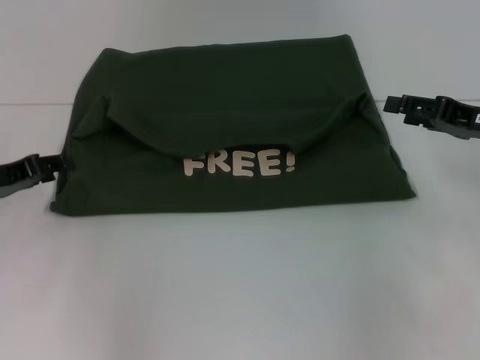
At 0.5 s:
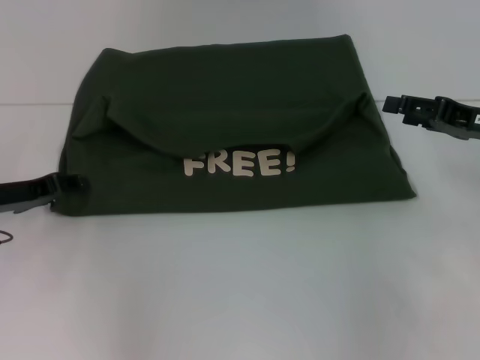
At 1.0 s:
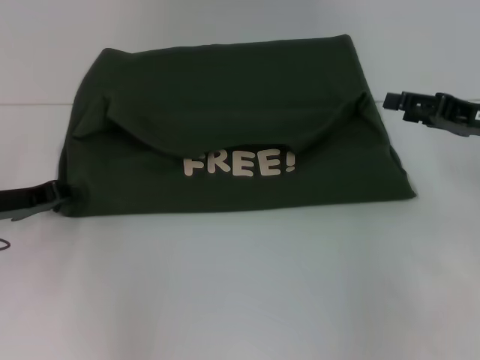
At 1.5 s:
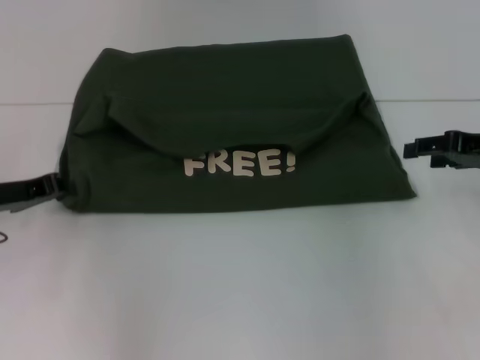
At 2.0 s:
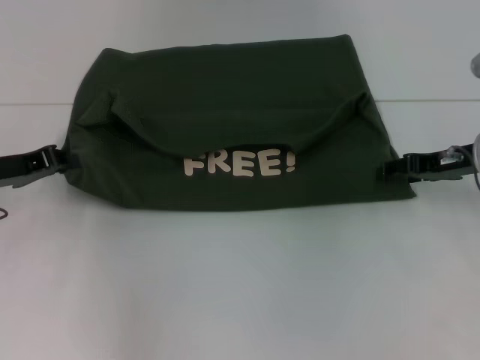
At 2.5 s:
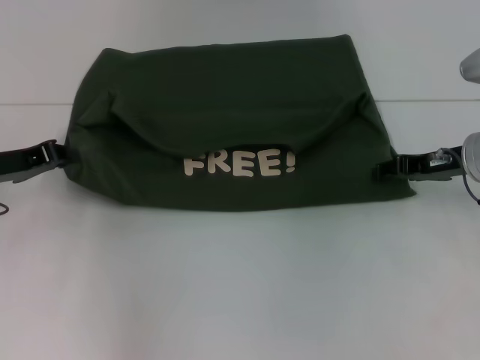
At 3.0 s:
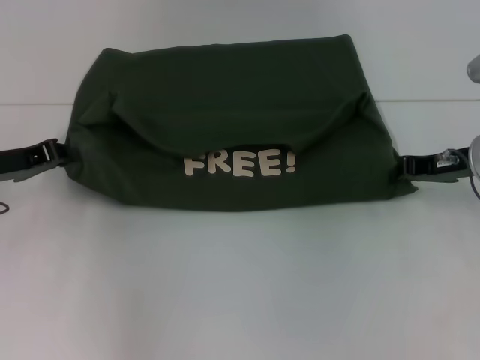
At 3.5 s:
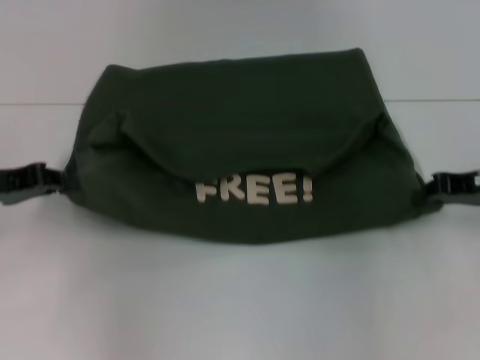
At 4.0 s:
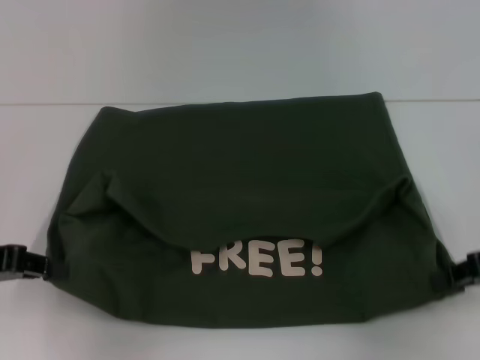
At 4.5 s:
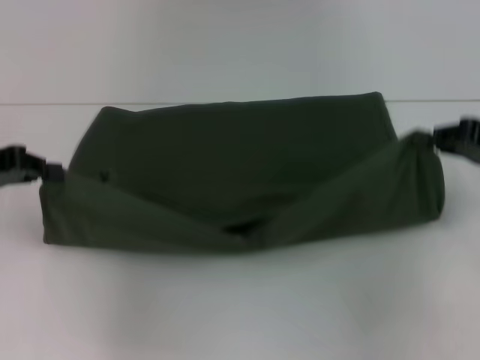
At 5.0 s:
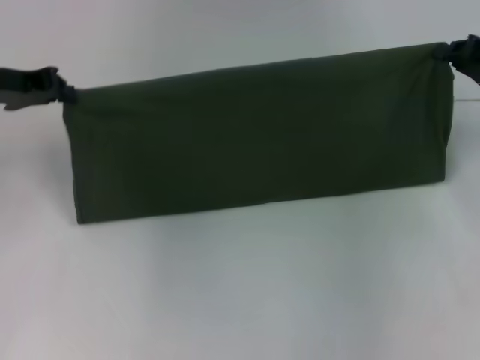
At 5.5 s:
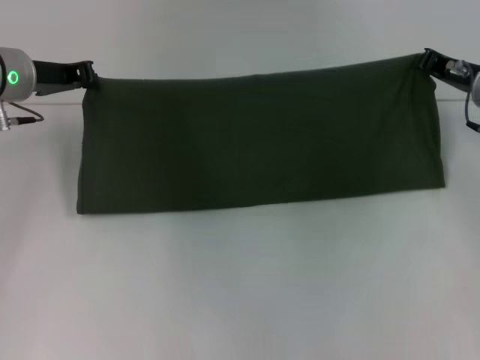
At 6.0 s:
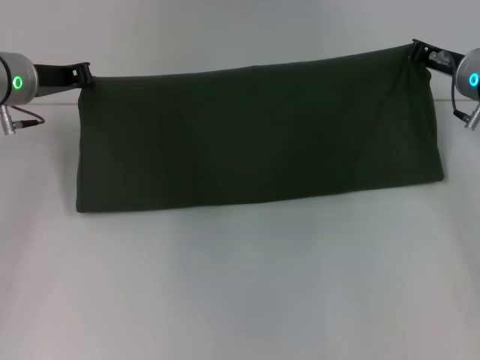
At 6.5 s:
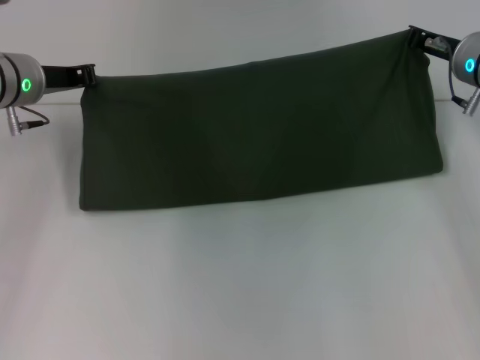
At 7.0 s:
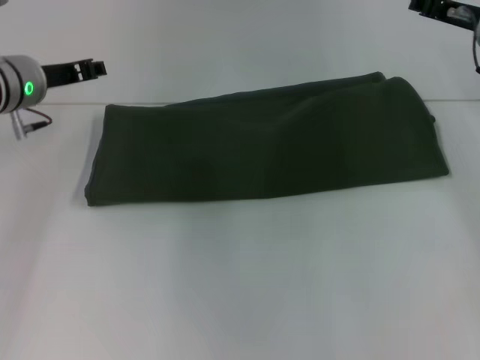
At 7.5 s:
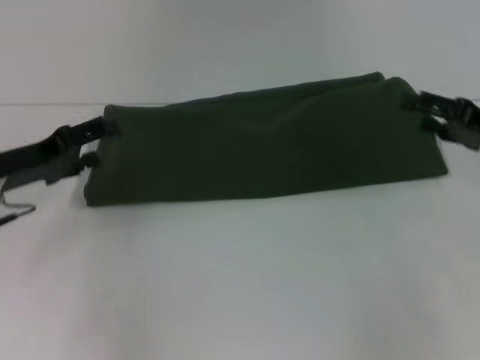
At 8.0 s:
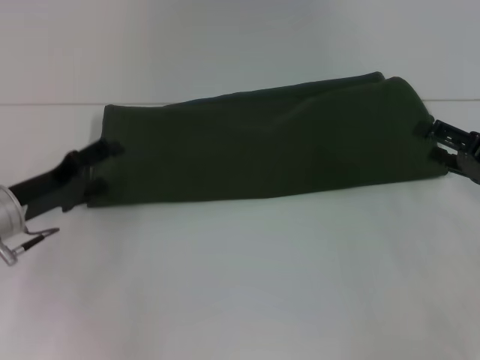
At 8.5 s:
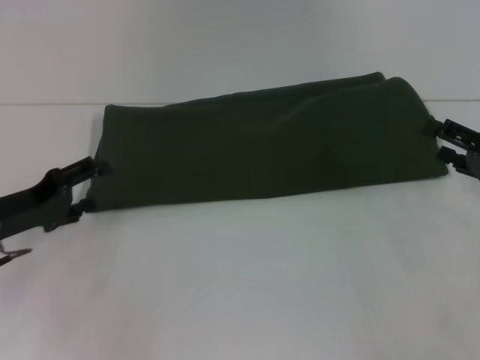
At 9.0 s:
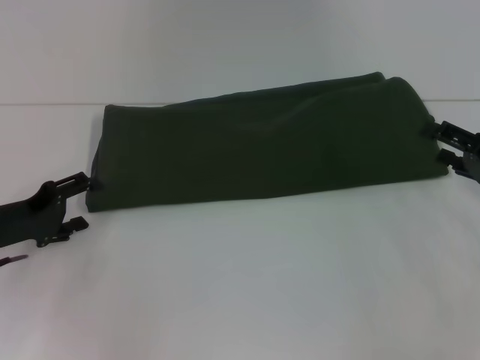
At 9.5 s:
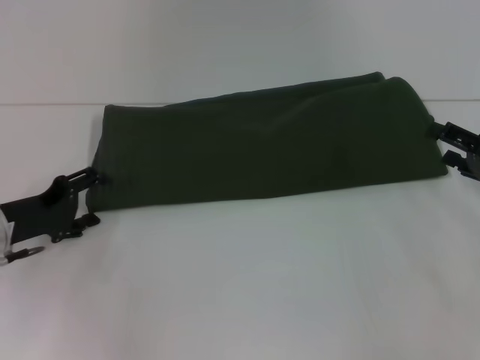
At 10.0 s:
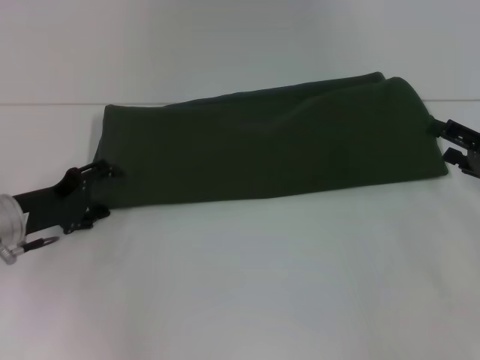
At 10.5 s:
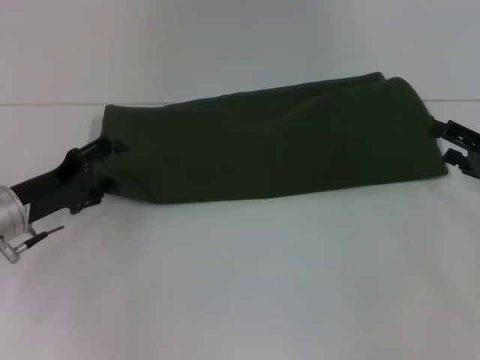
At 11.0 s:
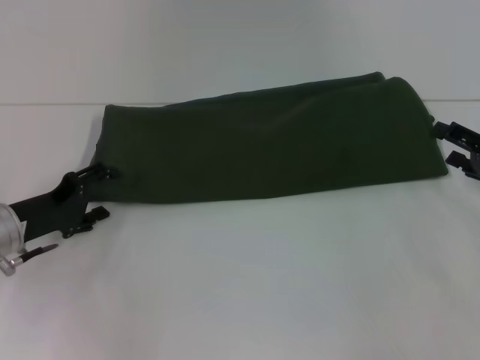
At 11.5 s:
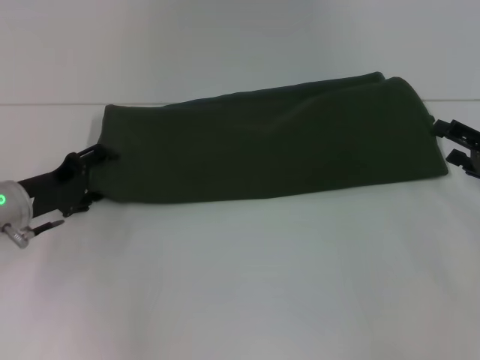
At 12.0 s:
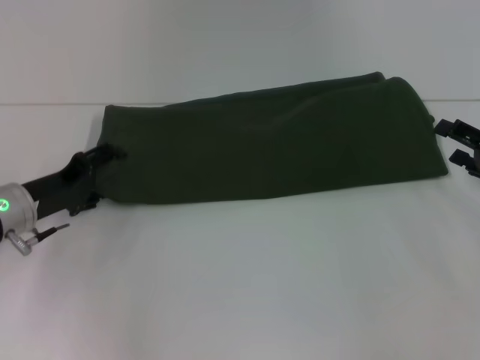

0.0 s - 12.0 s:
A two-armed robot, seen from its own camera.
Step, 0.0 s - 3.5 s: Pull the clothes with your left hand.
Step, 0.0 s - 3.5 s: Pull the clothes with your right hand.
Step, 4.0 s - 7.0 s: Fold the clothes with your right hand.
0.0 s - 2.0 s: The left gripper closes its fingers, while the right gripper shifts by approximately 5 cm.
2.0 s - 4.0 s: The right gripper shifts roughly 10 cm backward and to the right, and closes up. Meanwhile the left gripper is displaced backward by roughly 10 cm.
4.0 s - 6.0 s: The right gripper goes roughly 20 cm forward and to the left, while the left gripper moves forward and to the right, roughly 20 cm.
6.0 s - 8.0 s: The right gripper shifts approximately 15 cm backward and to the right, and opens, while the left gripper shifts approximately 15 cm backward and downward, and opens its fingers.
8.0 s - 12.0 s: There are only small adjustments of the grippers.

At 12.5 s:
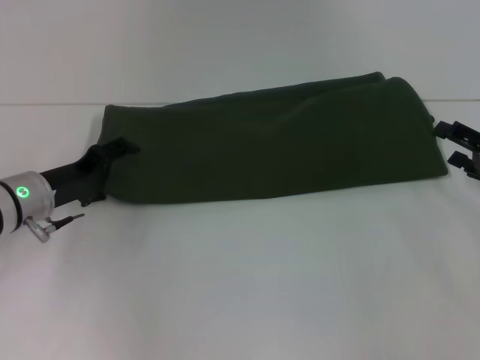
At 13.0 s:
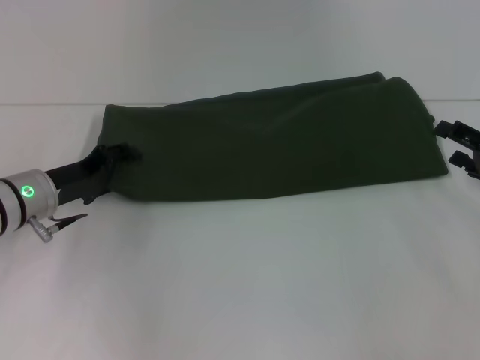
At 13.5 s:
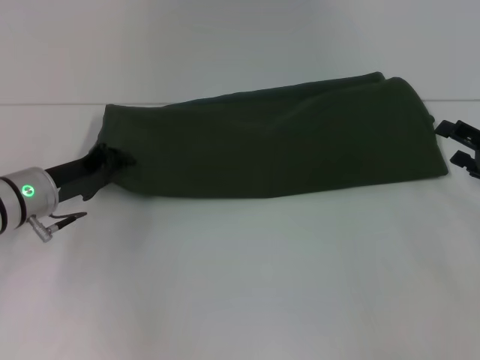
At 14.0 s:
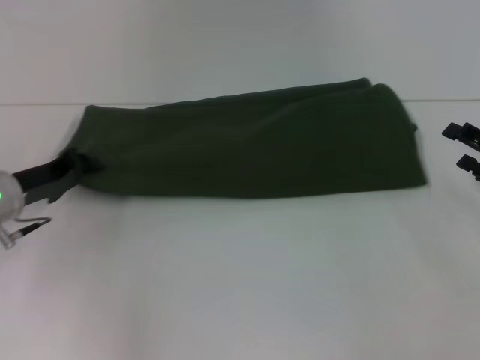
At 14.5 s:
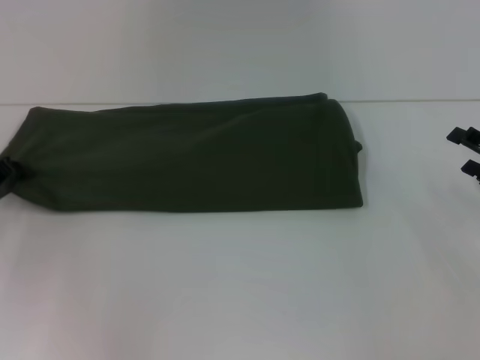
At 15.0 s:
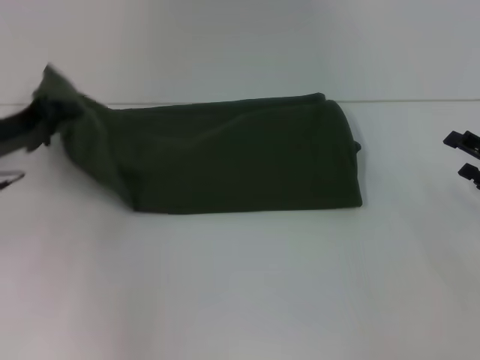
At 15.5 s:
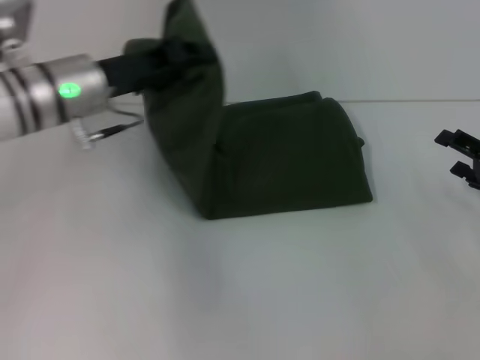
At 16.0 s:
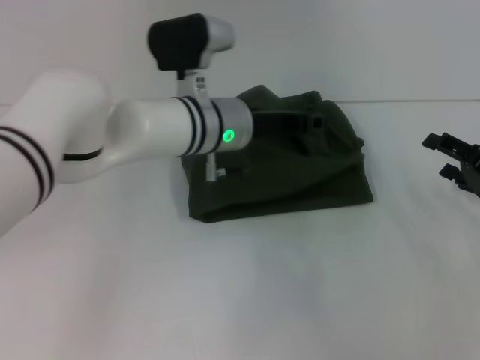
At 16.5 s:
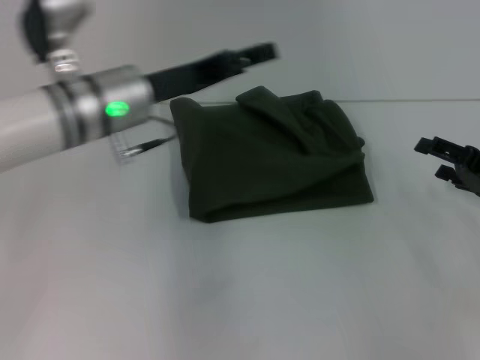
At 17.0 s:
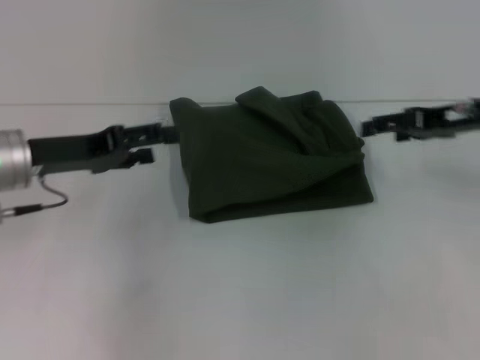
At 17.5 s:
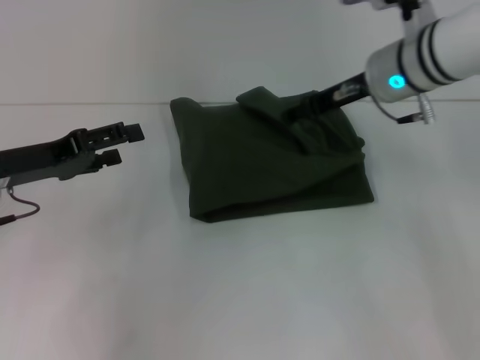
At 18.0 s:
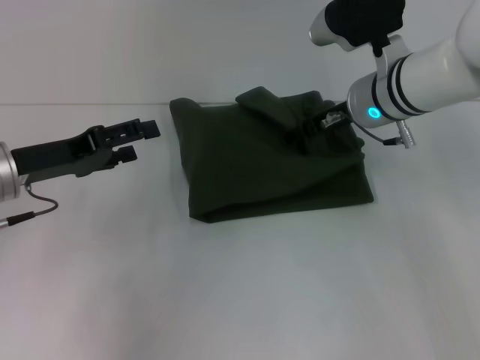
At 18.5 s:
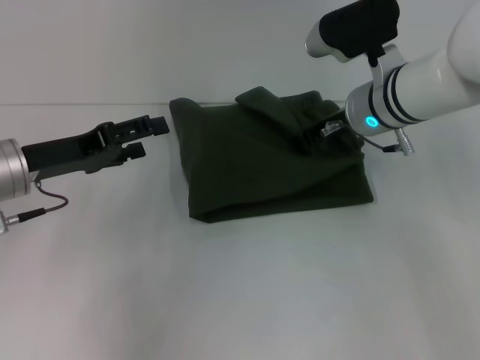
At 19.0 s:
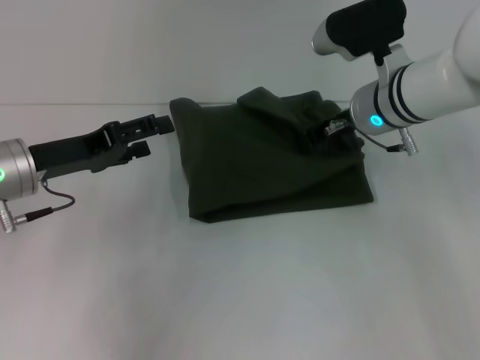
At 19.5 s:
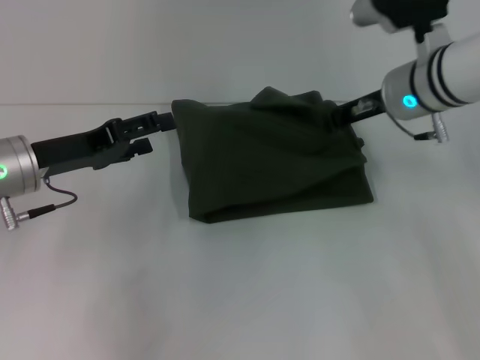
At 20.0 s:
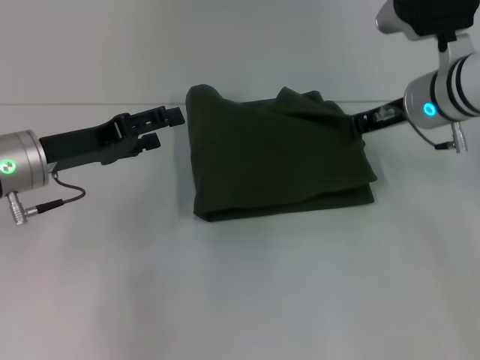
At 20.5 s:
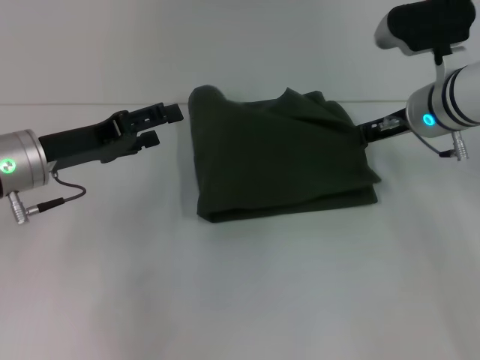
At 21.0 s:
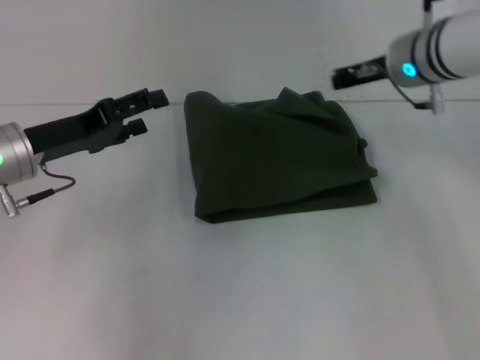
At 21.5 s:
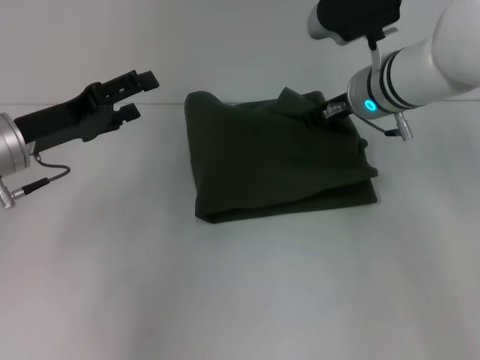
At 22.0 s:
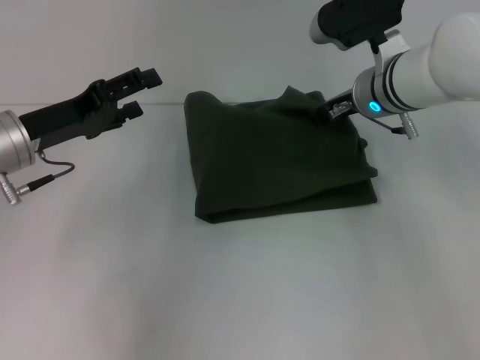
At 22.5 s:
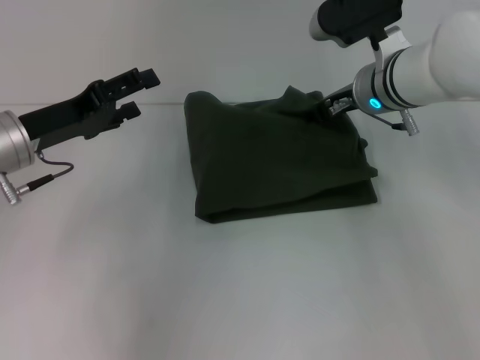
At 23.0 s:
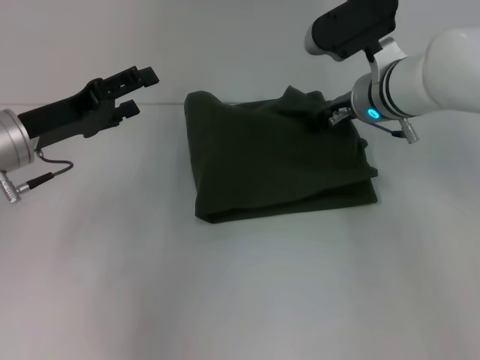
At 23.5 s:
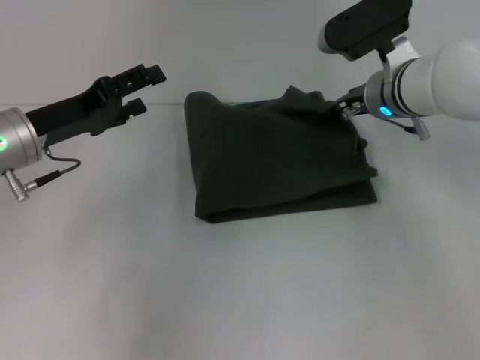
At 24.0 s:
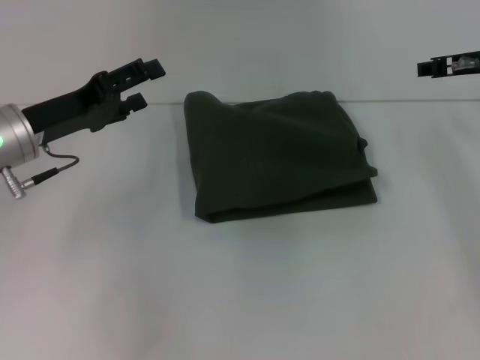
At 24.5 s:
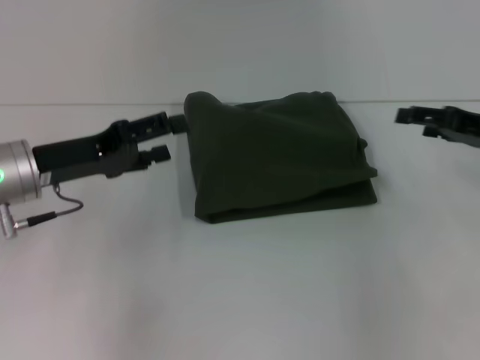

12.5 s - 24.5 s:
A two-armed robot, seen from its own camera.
Step, 12.5 s - 16.0 s: Fold the clothes with your left hand.
12.5 s - 14.5 s: The left gripper moves to the left, approximately 10 cm, and closes its fingers.
14.5 s - 16.5 s: The left gripper shifts about 20 cm to the right and upward, and opens its fingers.
16.5 s - 18.5 s: The left gripper moves to the left, some 10 cm. Meanwhile the right gripper goes roughly 20 cm to the left and forward.
18.5 s - 20.5 s: The right gripper travels to the right by approximately 5 cm, and closes.
20.5 s - 22.5 s: The right gripper heads to the left, covering approximately 5 cm, and opens its fingers.
22.5 s - 24.5 s: The right gripper shifts roughly 20 cm to the right and backward.

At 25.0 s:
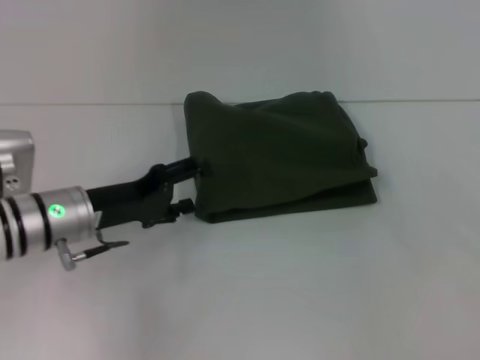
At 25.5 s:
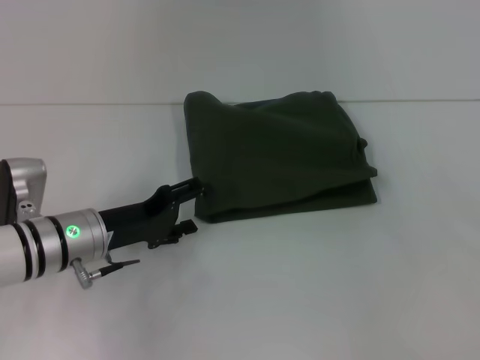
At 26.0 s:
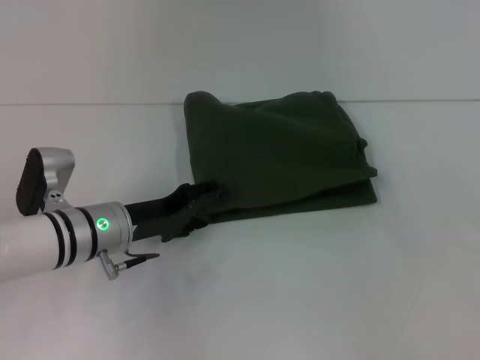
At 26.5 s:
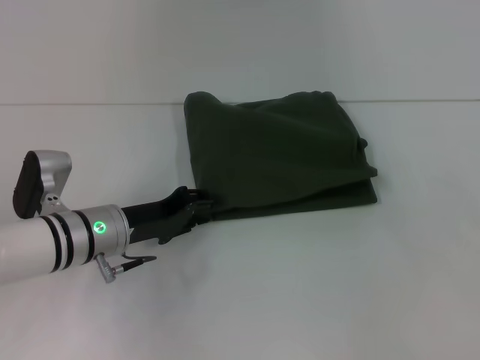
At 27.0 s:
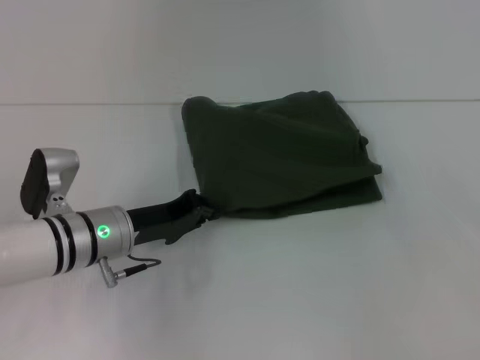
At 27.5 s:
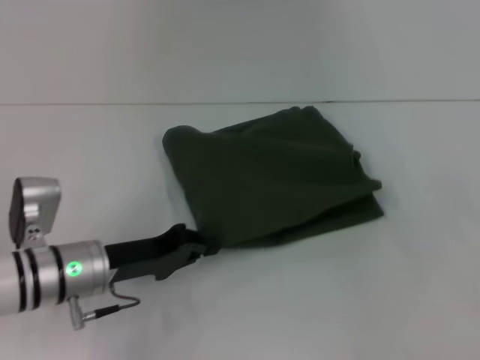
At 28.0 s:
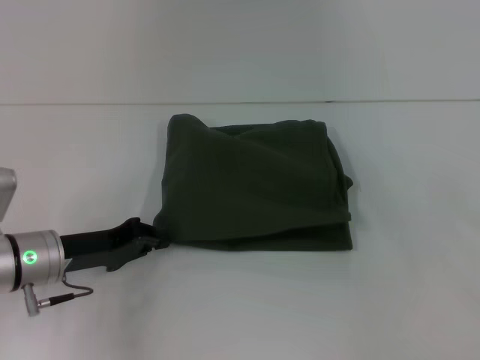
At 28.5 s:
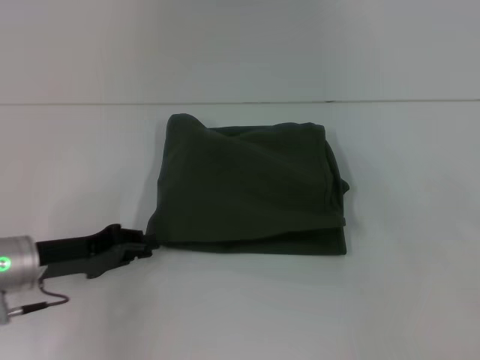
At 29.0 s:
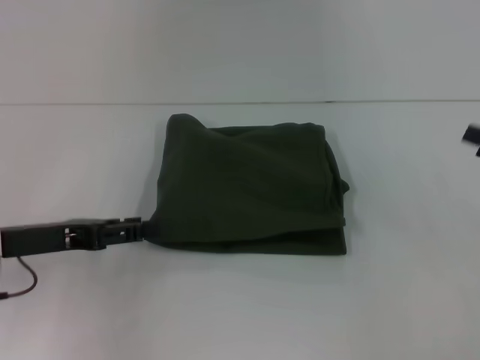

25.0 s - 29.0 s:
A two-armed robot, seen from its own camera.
25.0 s - 27.0 s: The left gripper closes its fingers.
27.0 s - 29.0 s: The left gripper shifts approximately 10 cm to the left and upward.
